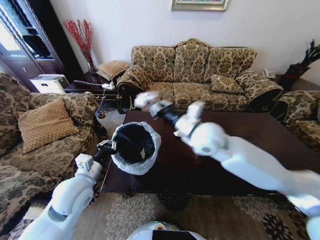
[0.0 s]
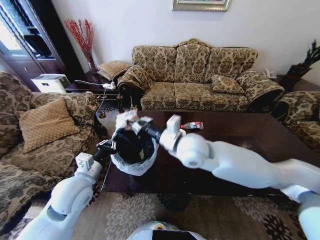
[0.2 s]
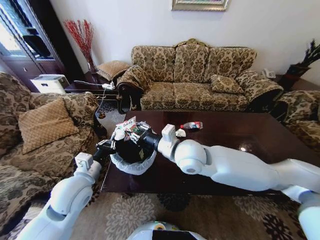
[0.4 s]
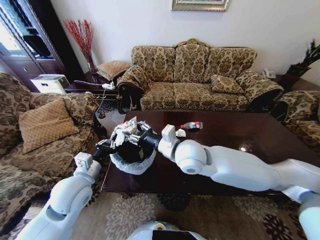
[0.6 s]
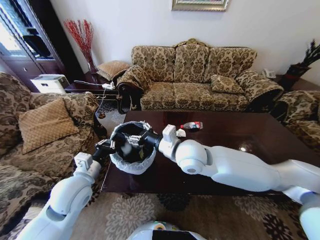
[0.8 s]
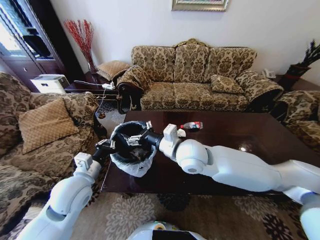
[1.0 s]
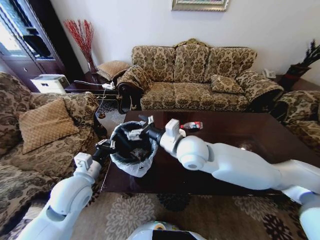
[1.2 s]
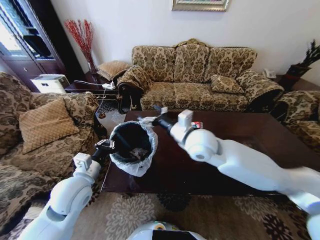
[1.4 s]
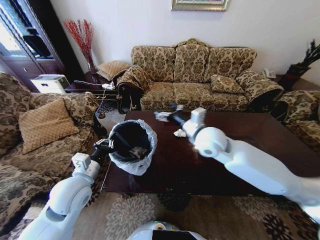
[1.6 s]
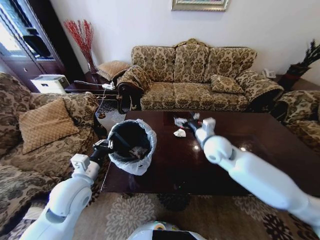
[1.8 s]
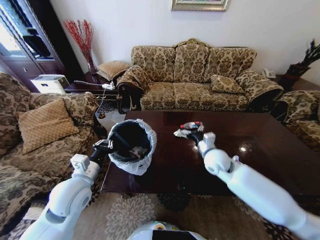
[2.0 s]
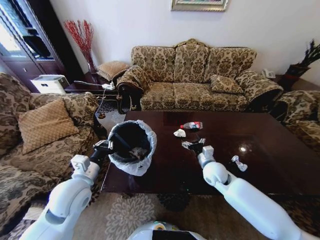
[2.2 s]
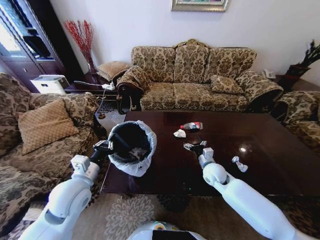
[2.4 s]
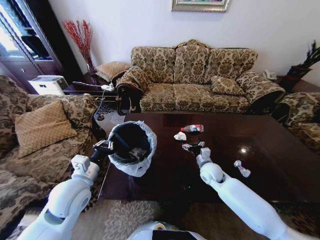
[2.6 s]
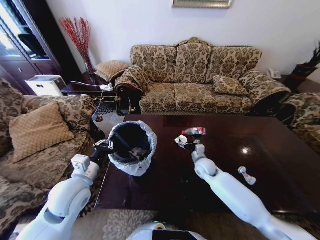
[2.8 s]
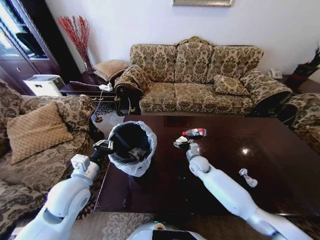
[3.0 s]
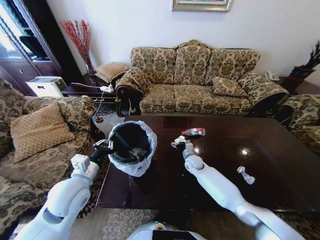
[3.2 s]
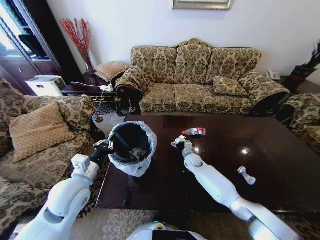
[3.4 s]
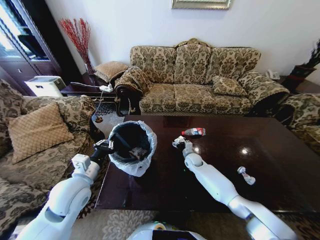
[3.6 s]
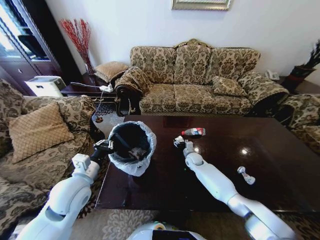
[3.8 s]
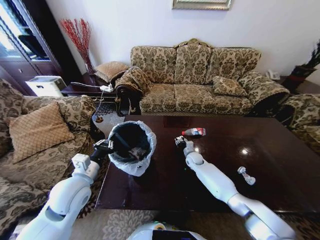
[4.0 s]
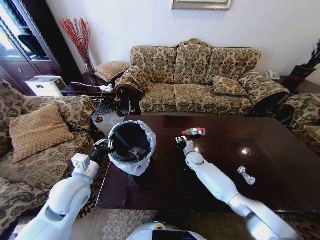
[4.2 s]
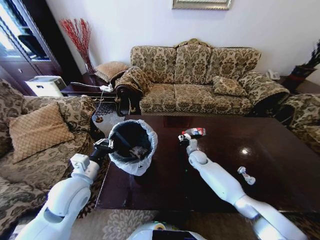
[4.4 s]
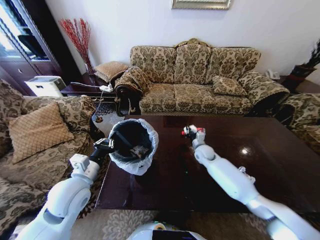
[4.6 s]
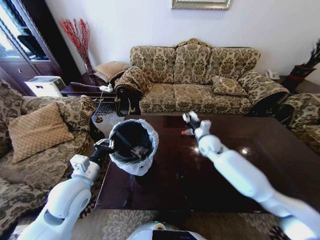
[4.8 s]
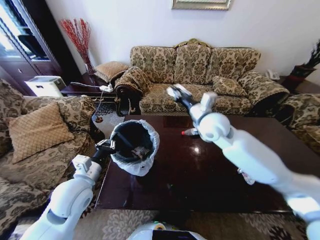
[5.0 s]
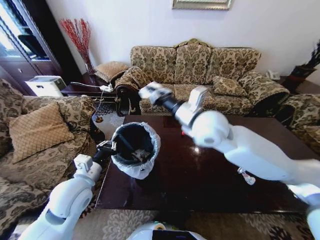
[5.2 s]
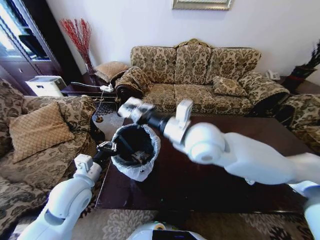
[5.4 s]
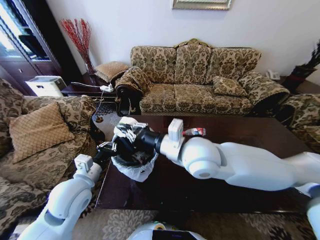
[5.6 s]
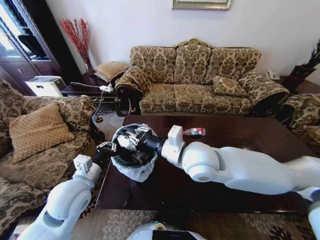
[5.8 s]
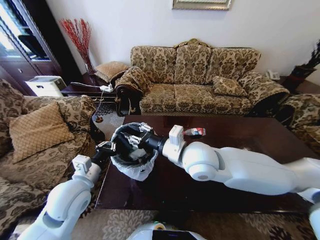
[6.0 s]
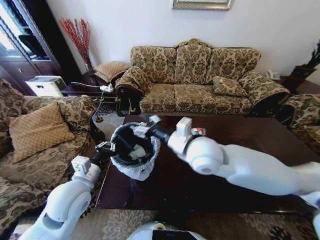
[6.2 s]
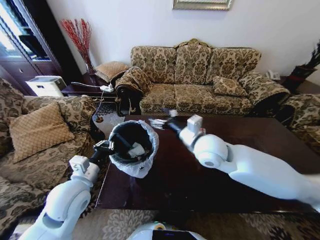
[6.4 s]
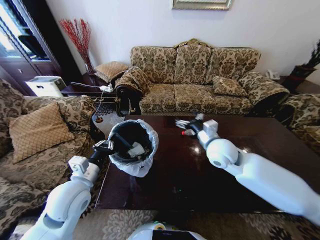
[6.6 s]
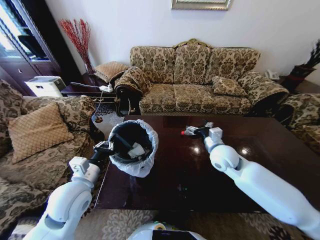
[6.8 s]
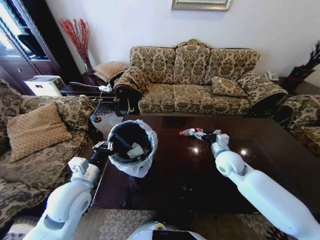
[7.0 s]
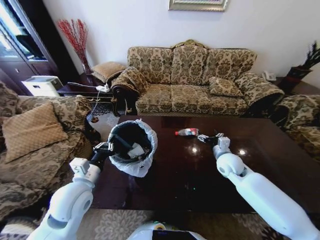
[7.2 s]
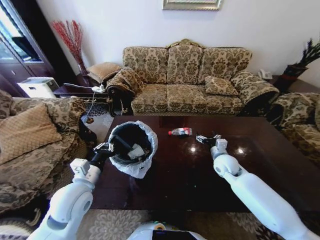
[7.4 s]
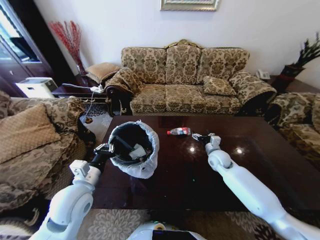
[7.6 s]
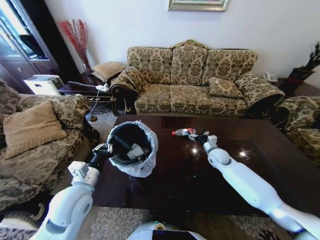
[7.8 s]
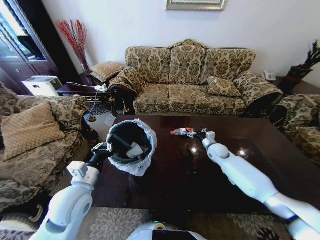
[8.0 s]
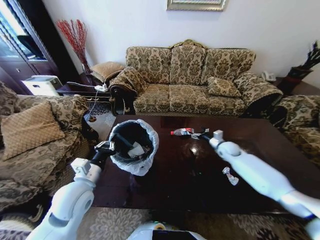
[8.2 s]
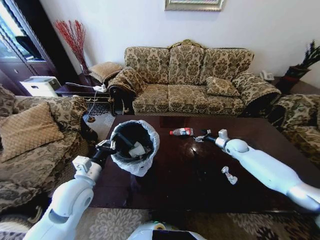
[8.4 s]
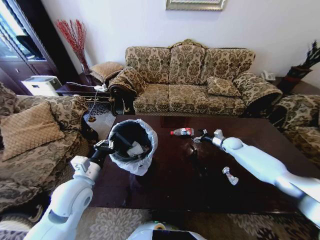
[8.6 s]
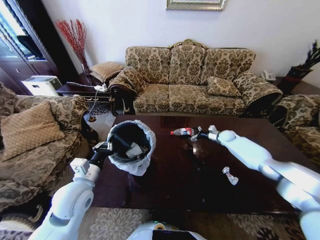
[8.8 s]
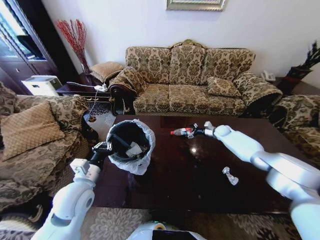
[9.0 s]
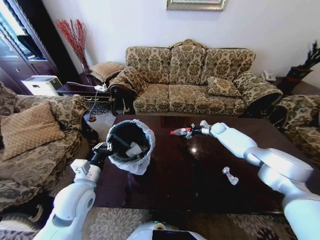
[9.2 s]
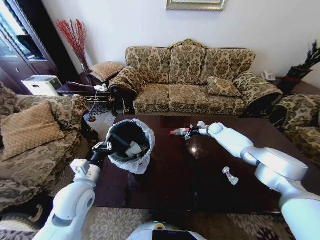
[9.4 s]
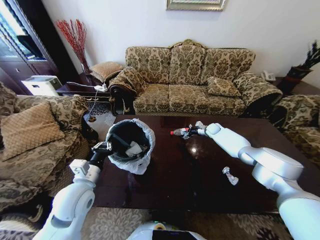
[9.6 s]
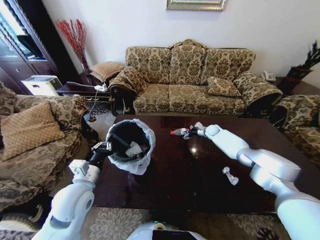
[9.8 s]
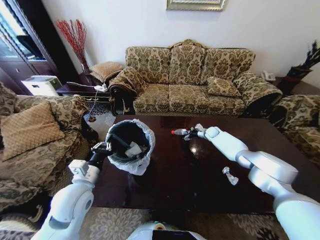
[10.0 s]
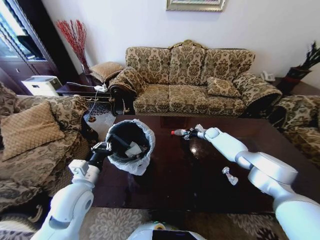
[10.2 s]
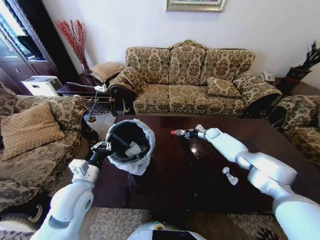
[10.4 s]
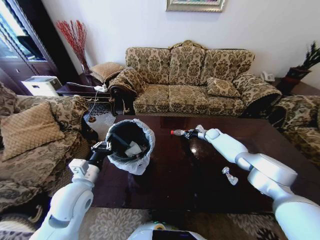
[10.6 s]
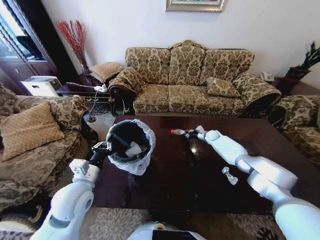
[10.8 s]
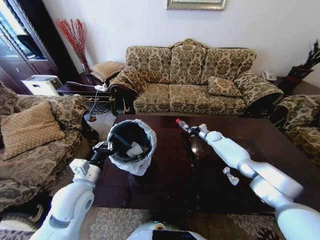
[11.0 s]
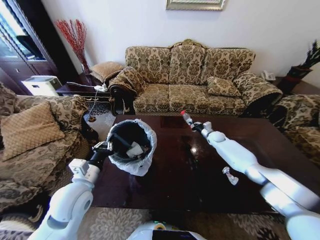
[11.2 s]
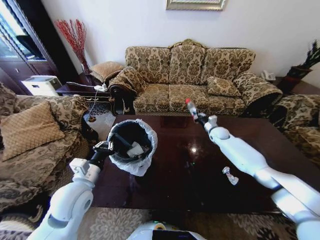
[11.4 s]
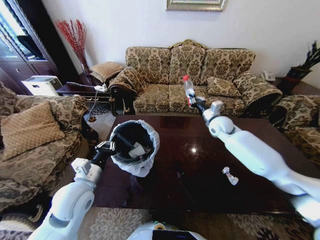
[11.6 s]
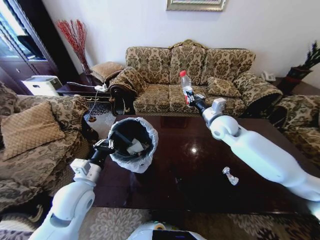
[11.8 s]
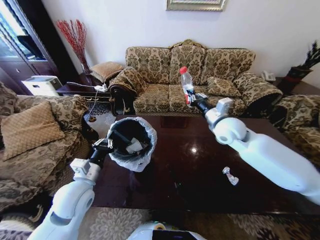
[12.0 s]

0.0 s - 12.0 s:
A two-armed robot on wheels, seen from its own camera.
Task of the whole recording: Move to the front of the table and place the trash on the table into the trash bin.
0.0 s - 1.6 s: The right gripper reaches approximately 5 cm to the left, then returns, and opens its fingers.
1.6 s - 3.0 s: The right gripper is displaced downward by approximately 25 cm.
3.0 s - 4.4 s: The right gripper shifts roughly 5 cm forward, and closes up.
4.4 s - 6.0 s: The right gripper travels upward, backward and to the left by about 40 cm.
6.0 s - 7.6 s: The right gripper is displaced downward, to the right and forward by about 30 cm, and opens.
7.6 s - 9.0 s: The right gripper is displaced forward and to the right by about 20 cm.
9.0 s - 10.4 s: The right gripper moves approximately 5 cm, and closes.
10.4 s - 12.0 s: The right gripper goes about 35 cm upward, backward and to the left, and closes.

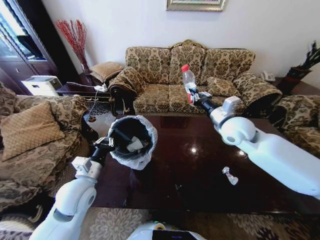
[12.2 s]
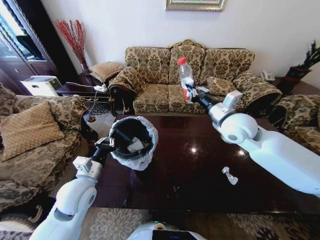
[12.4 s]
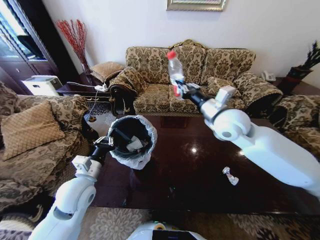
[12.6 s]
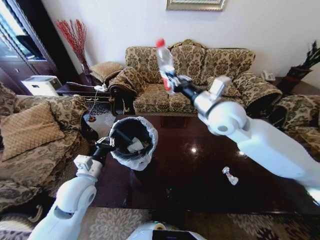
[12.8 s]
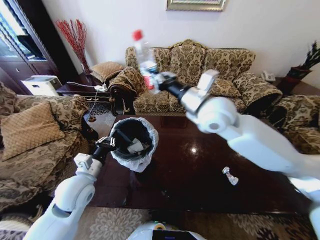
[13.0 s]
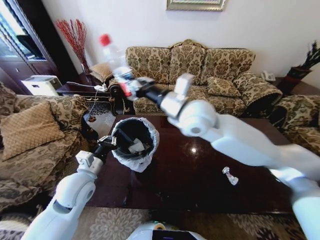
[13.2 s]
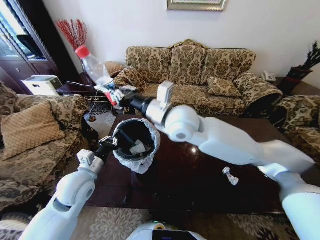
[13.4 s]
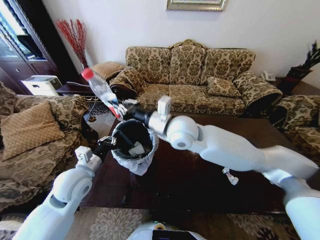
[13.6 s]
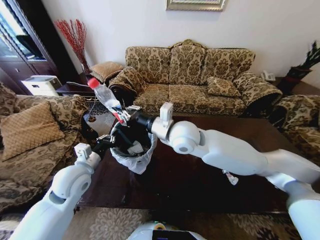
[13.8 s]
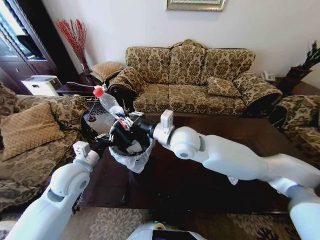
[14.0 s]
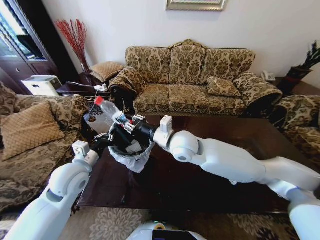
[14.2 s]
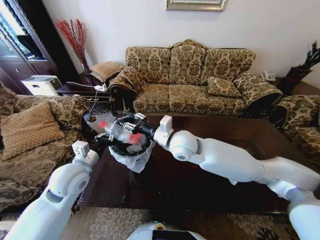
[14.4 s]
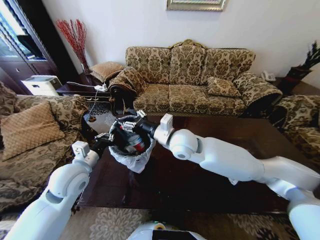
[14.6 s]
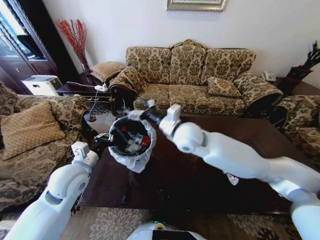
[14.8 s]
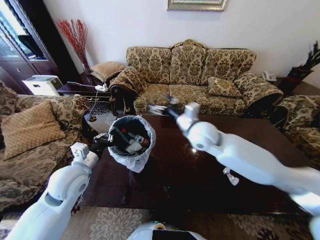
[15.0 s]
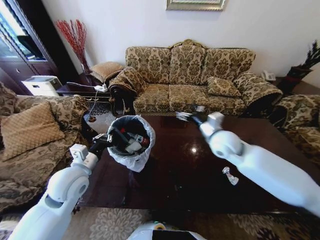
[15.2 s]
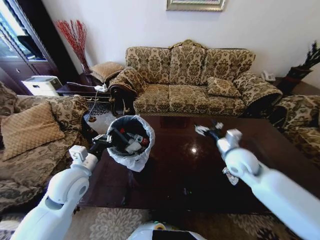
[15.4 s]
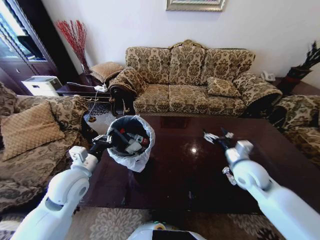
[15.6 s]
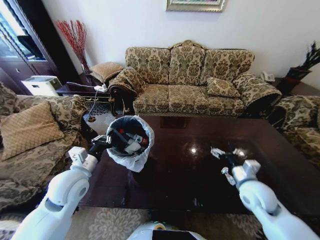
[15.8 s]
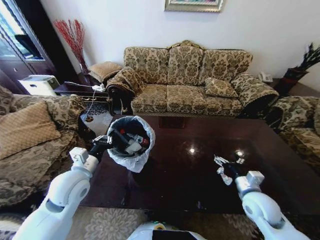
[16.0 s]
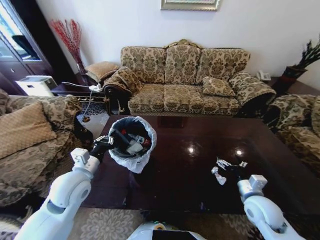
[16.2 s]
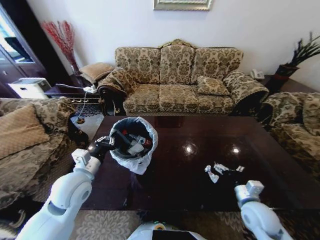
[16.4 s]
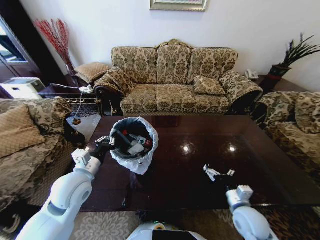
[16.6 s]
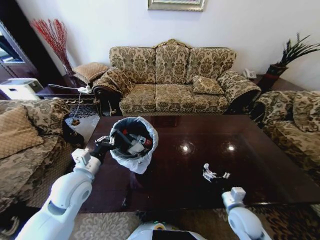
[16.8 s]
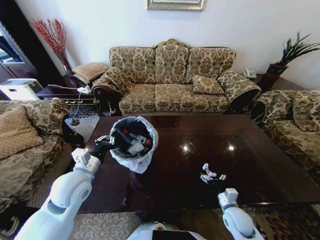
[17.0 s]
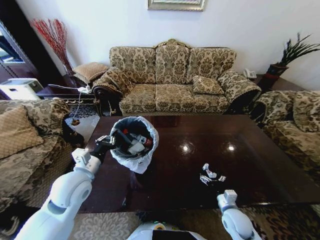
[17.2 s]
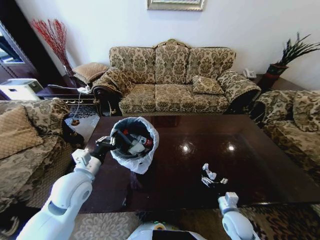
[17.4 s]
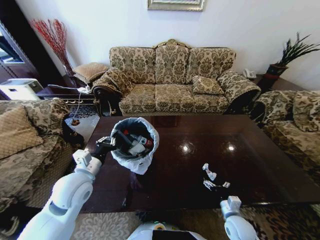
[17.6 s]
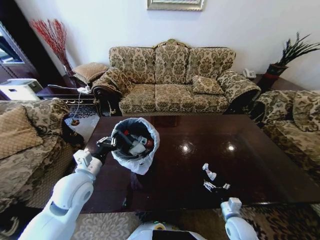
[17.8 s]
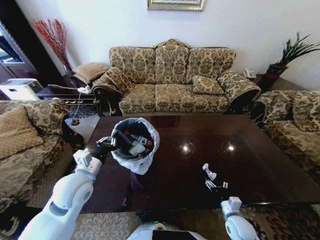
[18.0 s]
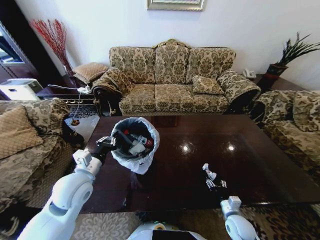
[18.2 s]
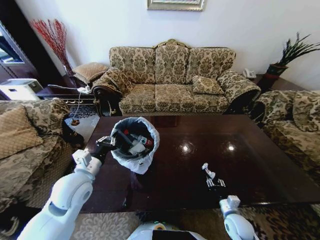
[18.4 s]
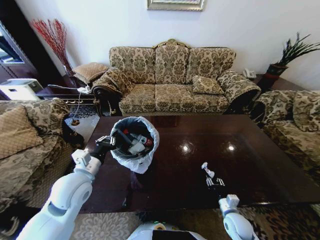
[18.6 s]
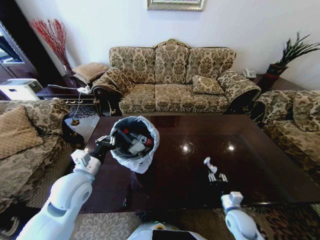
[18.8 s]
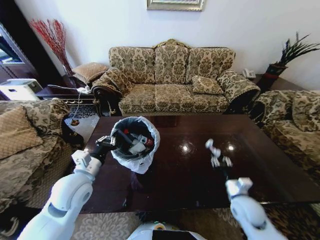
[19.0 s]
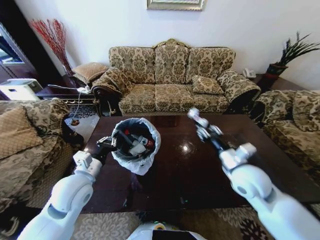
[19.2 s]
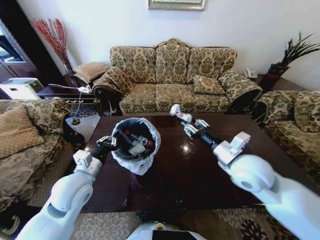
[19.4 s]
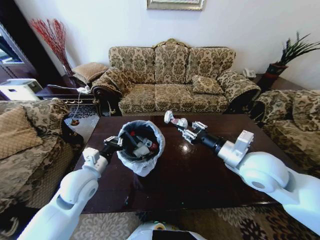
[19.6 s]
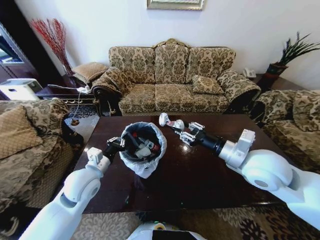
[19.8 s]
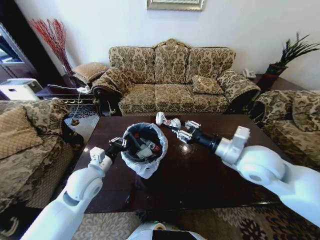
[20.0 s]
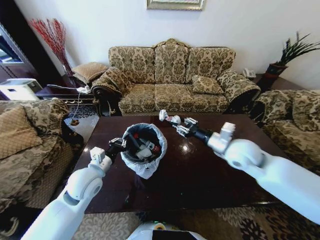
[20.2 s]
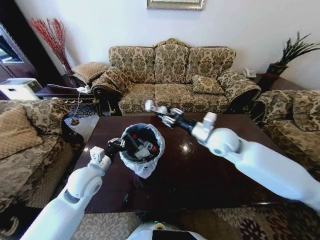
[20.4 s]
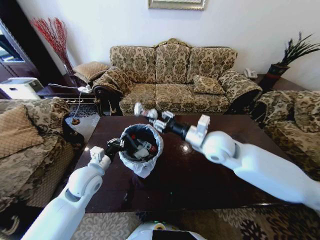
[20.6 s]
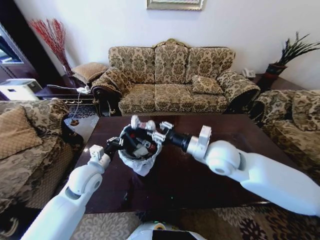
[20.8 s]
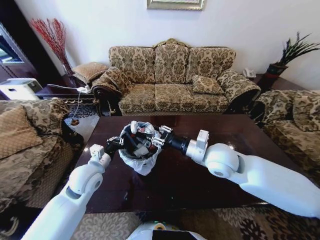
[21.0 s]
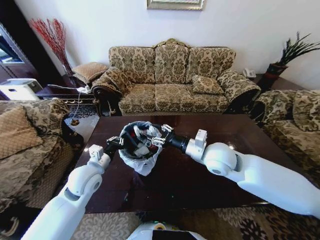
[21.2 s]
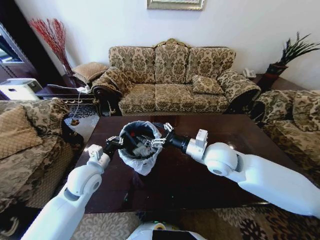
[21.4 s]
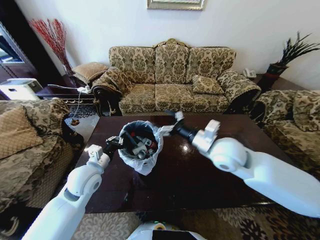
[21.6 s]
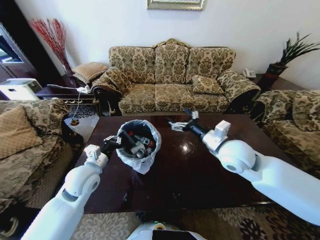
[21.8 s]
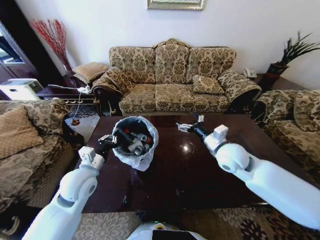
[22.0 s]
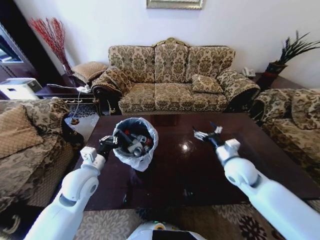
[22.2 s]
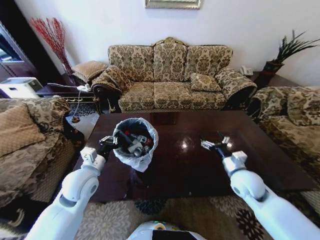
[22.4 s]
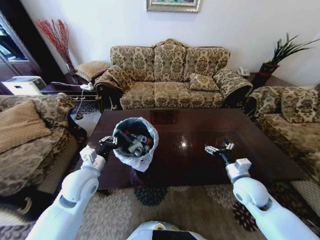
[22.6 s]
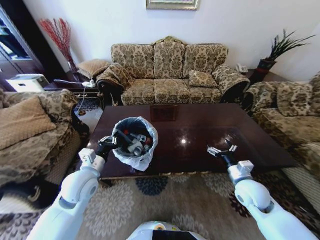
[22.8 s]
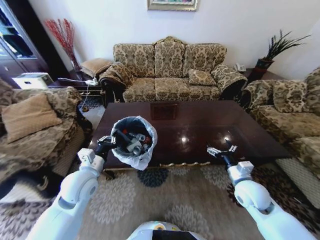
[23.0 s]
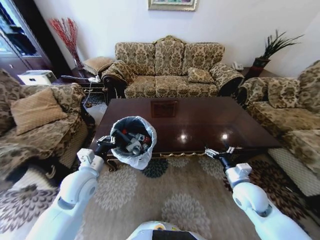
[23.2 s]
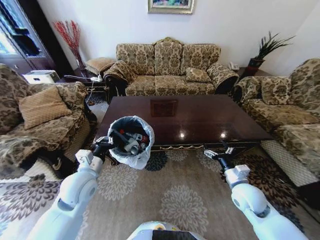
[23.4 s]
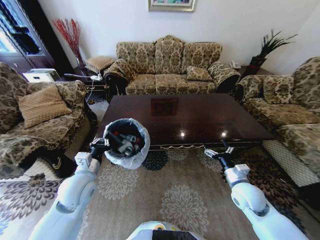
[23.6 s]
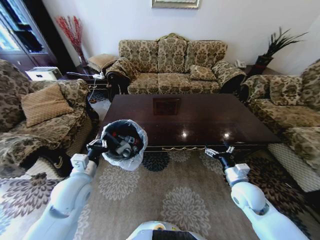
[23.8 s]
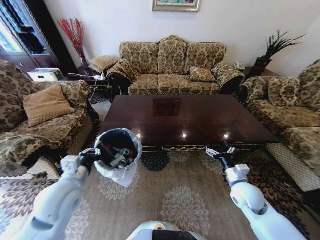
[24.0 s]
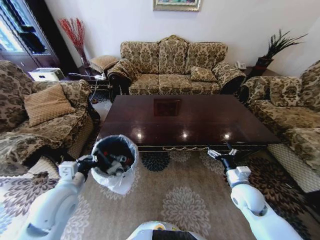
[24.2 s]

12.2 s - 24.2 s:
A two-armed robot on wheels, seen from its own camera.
Task of the whole recording: Move to the front of the table and place the trash on the table into the trash bin.
12.2 s - 13.8 s: The right gripper goes approximately 20 cm to the left.
13.8 s - 15.2 s: The right gripper travels to the right by about 15 cm, and opens its fingers.
15.2 s - 16.6 s: The right gripper goes about 30 cm downward, backward and to the right.
16.6 s - 18.2 s: The right gripper travels downward by approximately 10 cm, and closes its fingers.
18.2 s - 19.8 s: The right gripper travels upward by approximately 35 cm.
19.8 s - 21.2 s: The right gripper is displaced to the left and forward by about 10 cm.
21.2 s - 22.6 s: The right gripper moves to the right and downward, roughly 20 cm, and opens.
22.6 s - 24.2 s: The left gripper heads backward, covering roughly 5 cm.
